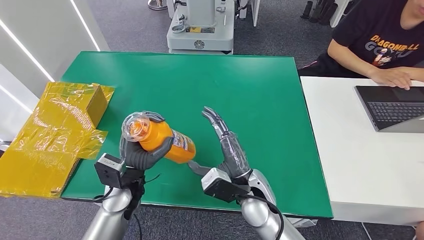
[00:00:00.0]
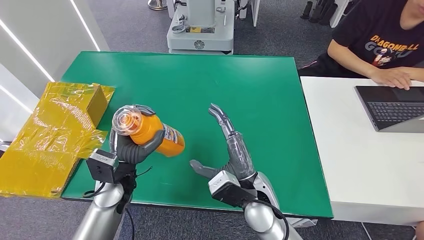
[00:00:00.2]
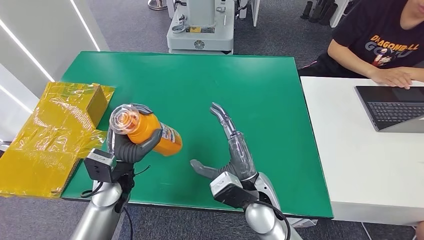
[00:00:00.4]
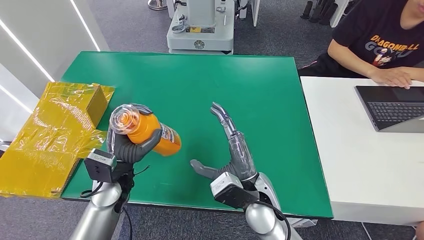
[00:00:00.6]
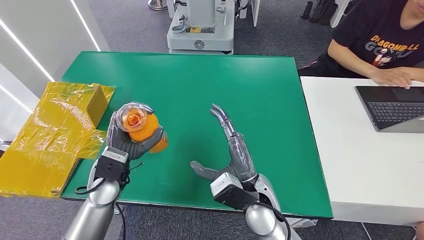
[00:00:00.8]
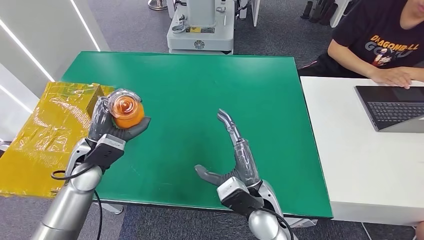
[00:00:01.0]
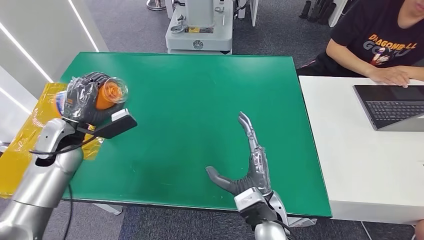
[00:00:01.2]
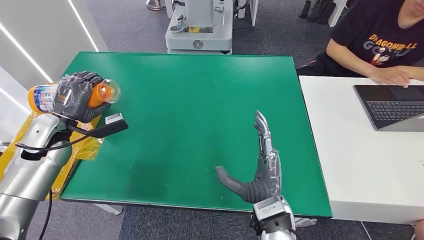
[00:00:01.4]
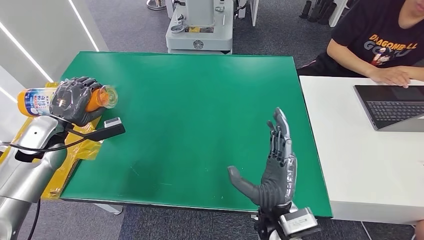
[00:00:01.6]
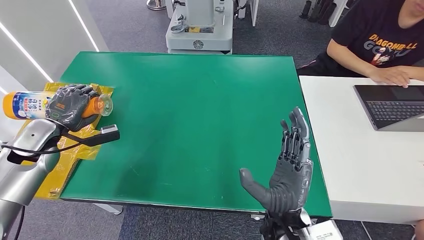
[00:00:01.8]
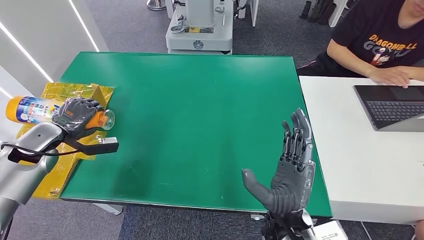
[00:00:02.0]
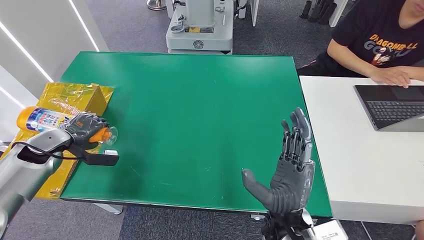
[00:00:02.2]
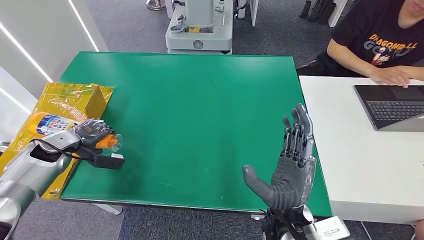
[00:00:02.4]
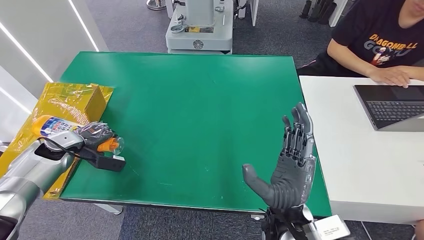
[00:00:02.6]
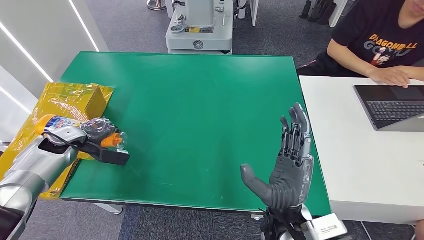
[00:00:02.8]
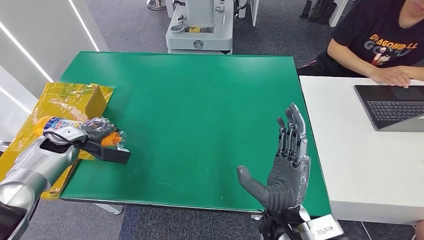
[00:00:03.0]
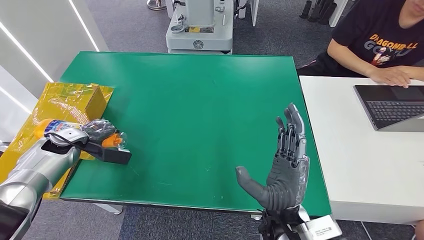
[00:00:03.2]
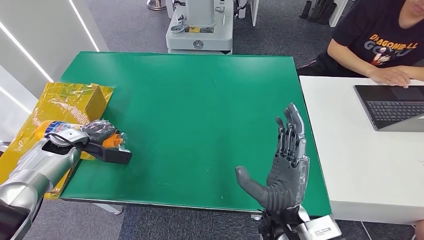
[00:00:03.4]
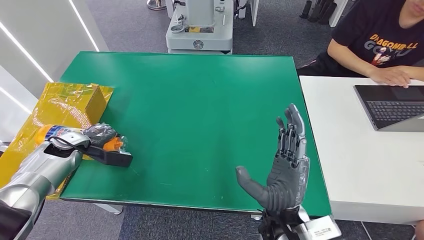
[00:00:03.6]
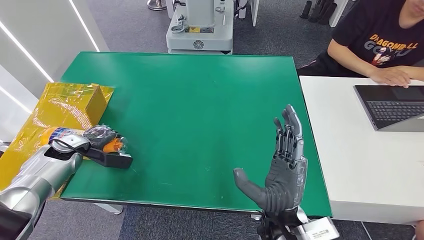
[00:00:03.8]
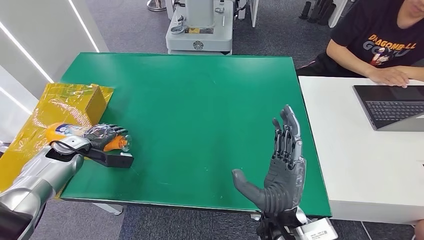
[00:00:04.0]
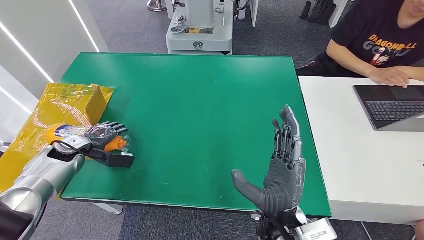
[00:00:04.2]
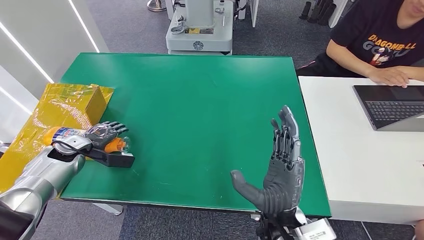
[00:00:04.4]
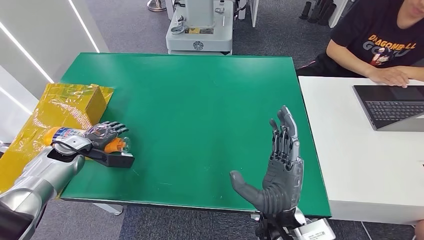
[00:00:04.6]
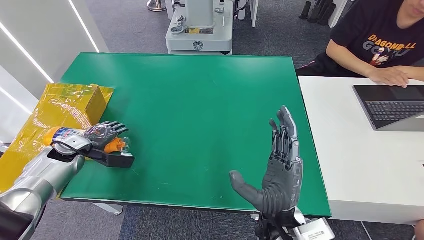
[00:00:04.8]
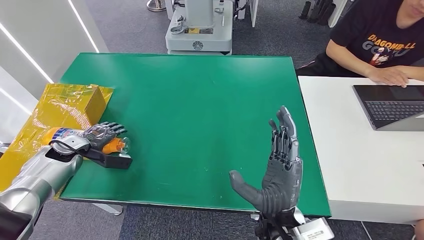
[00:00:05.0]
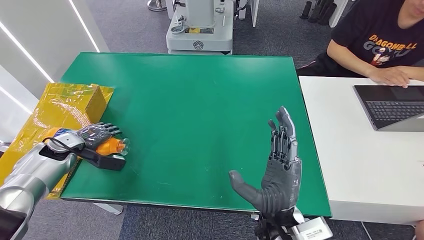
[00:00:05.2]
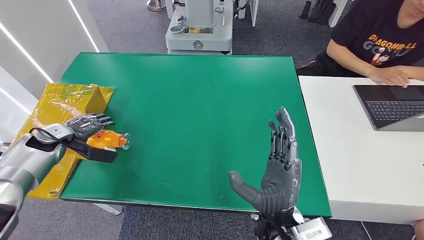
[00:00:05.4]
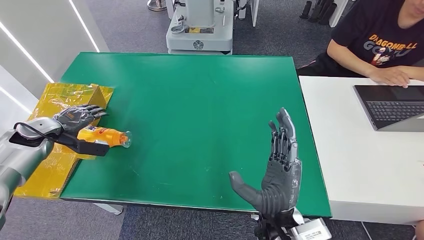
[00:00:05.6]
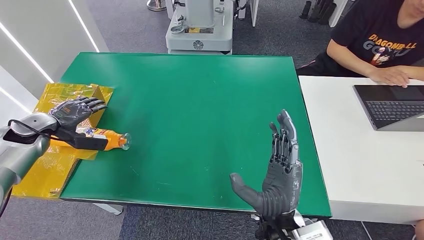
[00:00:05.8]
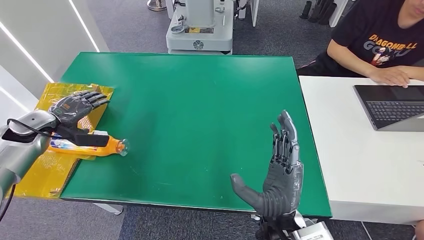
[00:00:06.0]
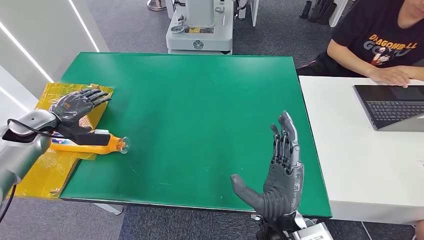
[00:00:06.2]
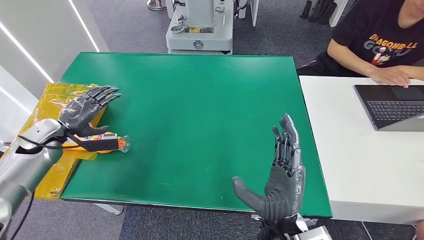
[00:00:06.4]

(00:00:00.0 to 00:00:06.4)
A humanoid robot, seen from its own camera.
Step, 00:00:00.0 - 00:00:06.4: Turn the bottle to the front side.
00:00:01.6 - 00:00:03.2: The left hand is displaced downward by approximately 5 cm.
00:00:03.2 - 00:00:04.8: The hands move only a little.
00:00:04.8 - 00:00:06.4: The left hand moves upward, approximately 5 cm.
